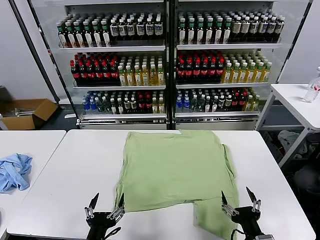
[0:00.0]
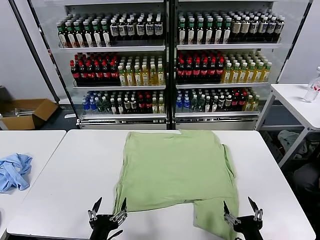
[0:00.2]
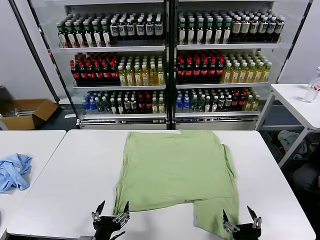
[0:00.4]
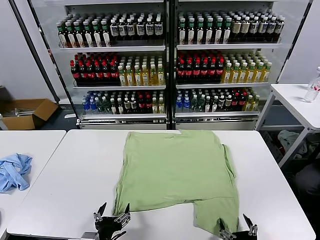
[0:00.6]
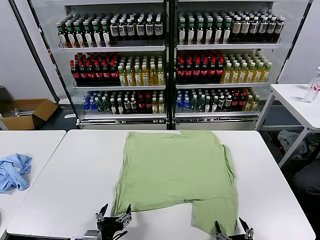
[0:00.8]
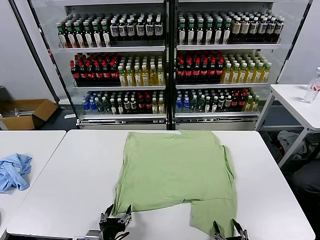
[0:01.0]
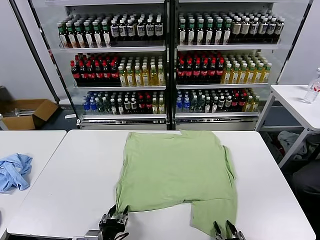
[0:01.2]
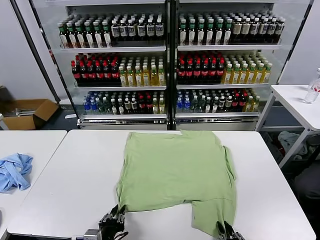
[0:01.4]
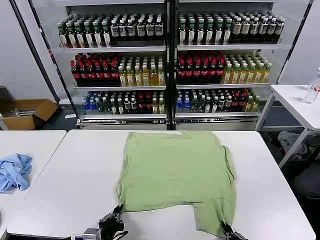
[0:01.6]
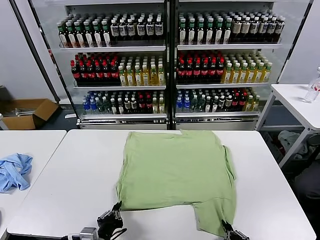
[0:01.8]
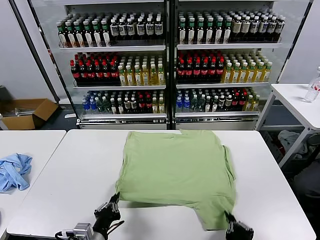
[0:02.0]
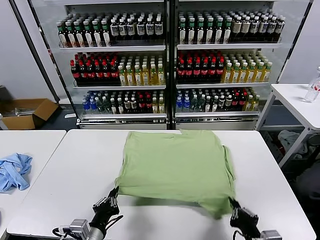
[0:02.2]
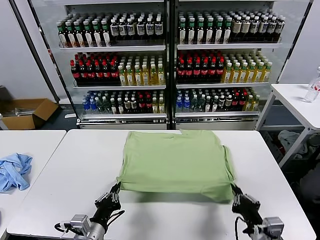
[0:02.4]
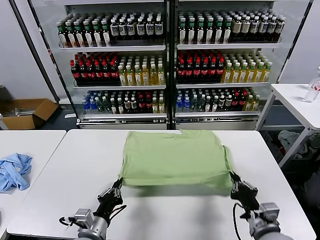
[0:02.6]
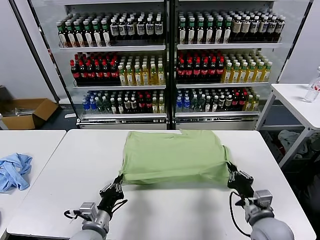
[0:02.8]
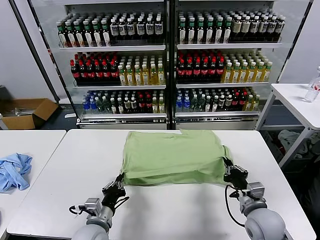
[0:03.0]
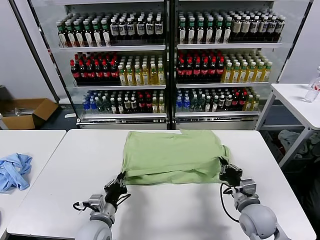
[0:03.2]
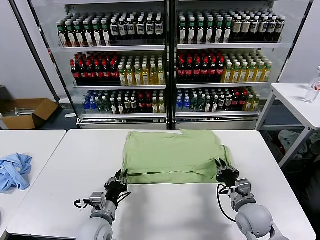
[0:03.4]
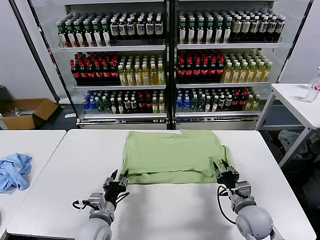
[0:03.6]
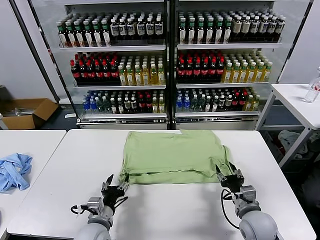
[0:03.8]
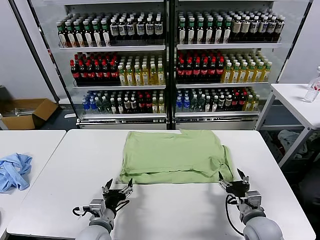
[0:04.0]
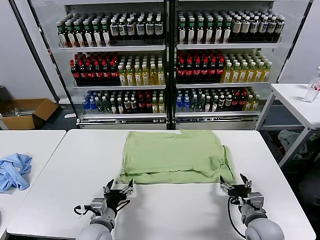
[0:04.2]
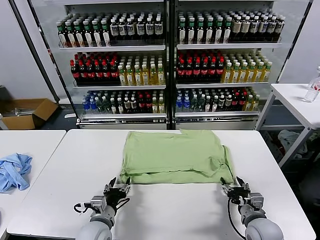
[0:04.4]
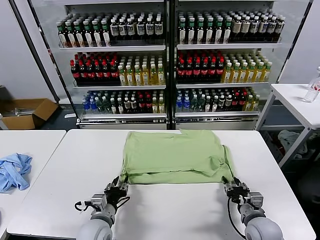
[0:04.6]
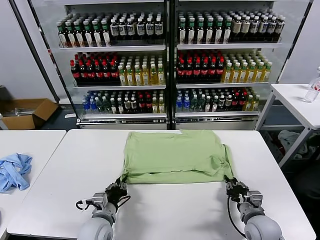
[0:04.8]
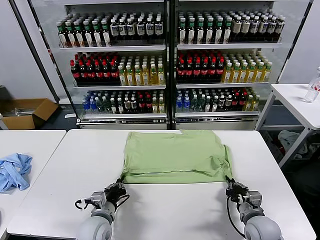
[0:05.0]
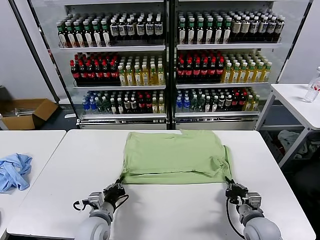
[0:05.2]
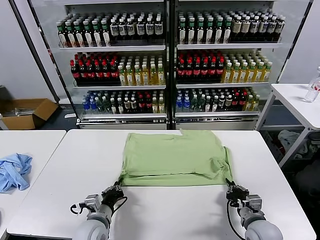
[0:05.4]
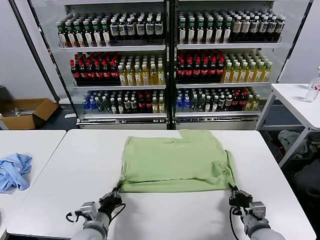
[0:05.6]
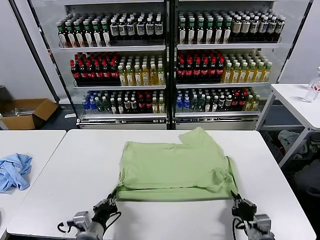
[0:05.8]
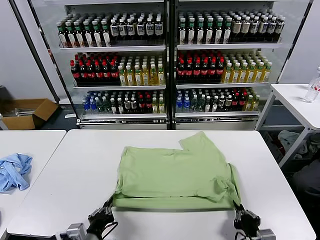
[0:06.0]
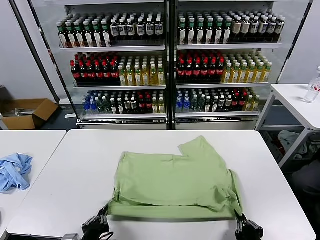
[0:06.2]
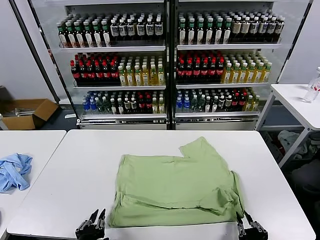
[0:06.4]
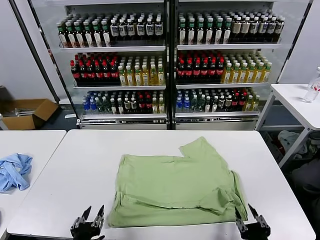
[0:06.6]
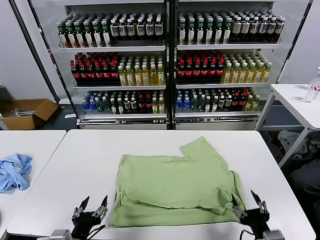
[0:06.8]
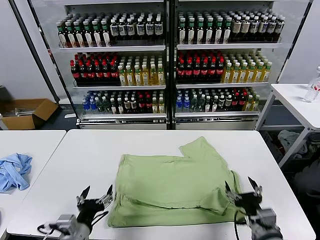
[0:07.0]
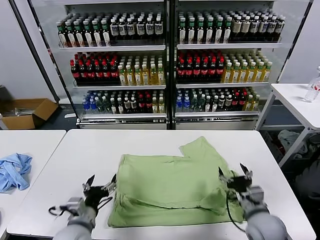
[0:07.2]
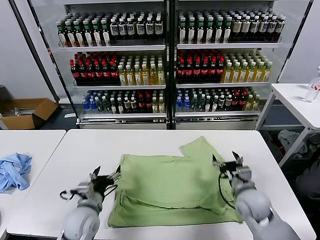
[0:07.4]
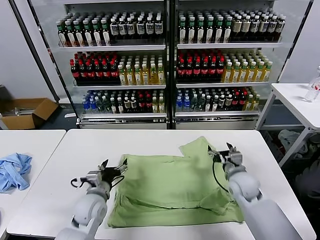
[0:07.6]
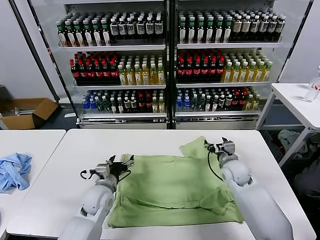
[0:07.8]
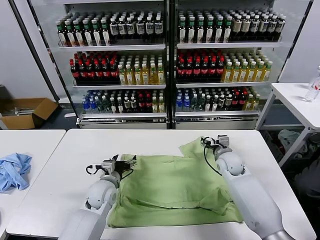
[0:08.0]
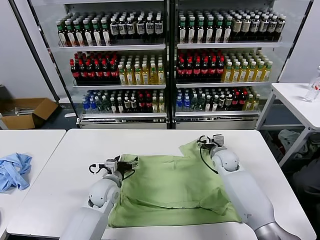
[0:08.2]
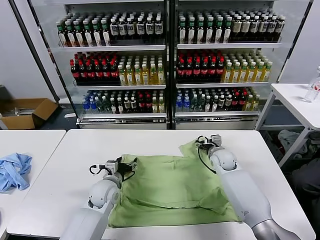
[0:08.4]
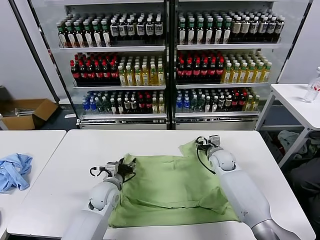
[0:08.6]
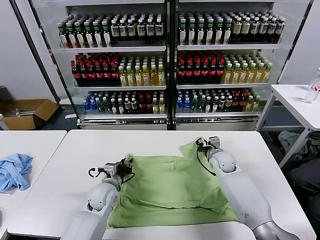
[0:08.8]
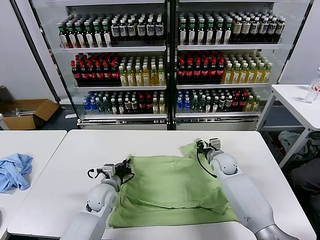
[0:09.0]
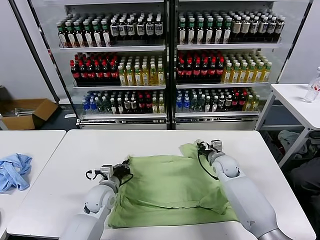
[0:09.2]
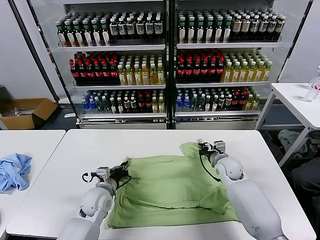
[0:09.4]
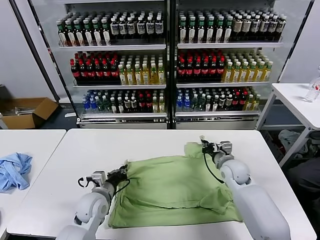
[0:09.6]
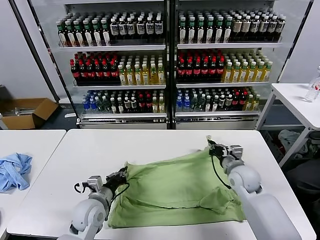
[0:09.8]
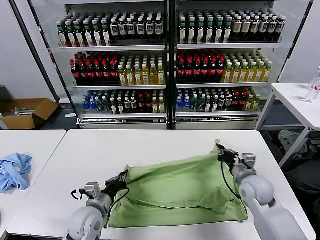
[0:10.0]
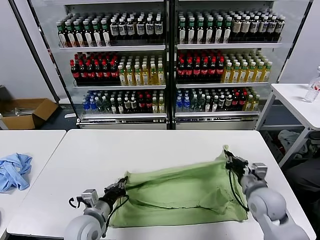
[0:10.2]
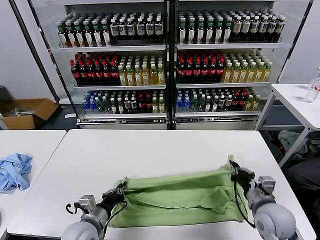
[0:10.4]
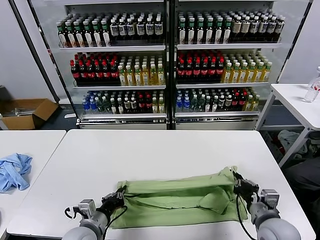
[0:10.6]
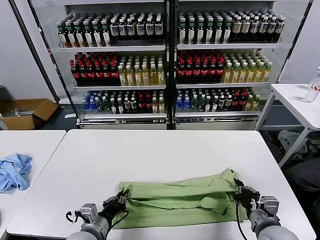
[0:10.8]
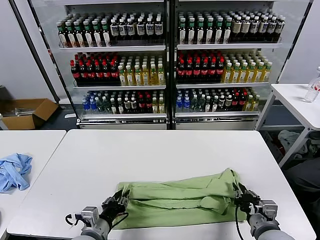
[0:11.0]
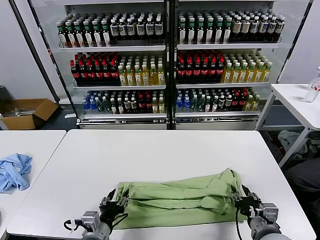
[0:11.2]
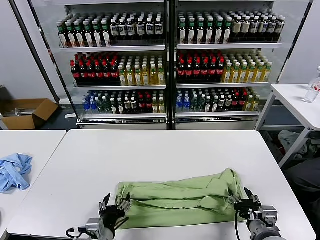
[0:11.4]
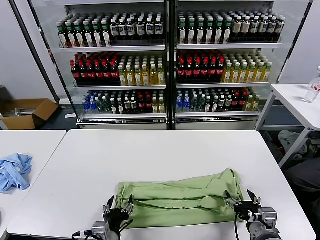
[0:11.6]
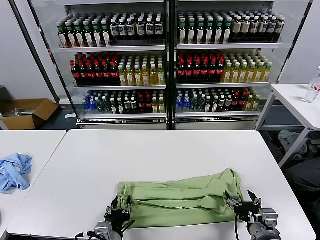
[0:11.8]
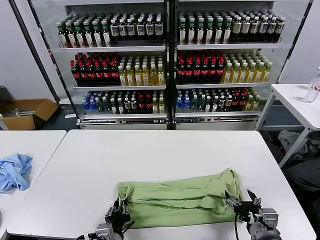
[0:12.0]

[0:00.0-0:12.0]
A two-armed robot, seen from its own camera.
Task of the whole recording: fold and organize the clothes.
Step, 0.0 to 1.6 s: use both grippers simultaneously to clamp the lower edge of the clothing fabric.
Step, 1.8 to 3.4 s: use both grippers to drag the lower edge of the fabric forward and fold it over the upper edge.
Step, 3.8 to 6.2 s: Drag the clothes downward with both gripper.
Step, 6.4 to 9.0 s: use both grippers simultaneously to clamp the upper edge of the clothing fabric.
Step, 9.2 to 11.0 s: use both grippers to drag the upper edge of the fabric backward and fold it over the lower edge.
1.6 to 3.0 s: The left gripper is displaced forward by about 10 cm; the right gripper shifts about 20 cm forward.
3.0 to 4.4 s: The left gripper opens up; the right gripper shifts by about 5 cm, and opens its fingers.
4.4 to 6.0 s: Both grippers move backward, approximately 10 cm. The right gripper closes its fingers. The left gripper closes up.
6.0 to 7.6 s: The right gripper goes some 30 cm forward, and opens. Meanwhile the left gripper shifts about 20 cm forward, and opens up.
7.6 to 9.0 s: The right gripper heads forward, covering some 10 cm, and closes its fingers. The left gripper shifts by approximately 5 cm, and closes its fingers.
9.0 to 10.4 s: The right gripper heads backward, covering about 25 cm. Meanwhile the left gripper is displaced backward by roughly 15 cm.
10.4 to 12.0 s: The right gripper travels backward by some 5 cm, and opens up. Meanwhile the left gripper shifts some 10 cm to the right and backward, and opens, then closes once more.

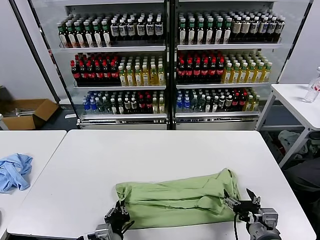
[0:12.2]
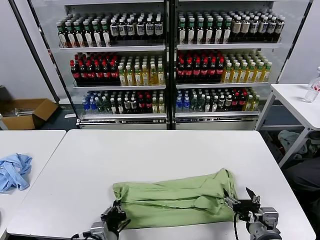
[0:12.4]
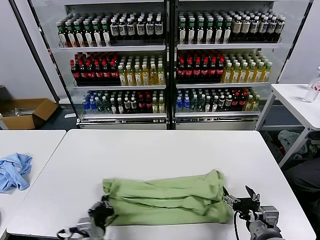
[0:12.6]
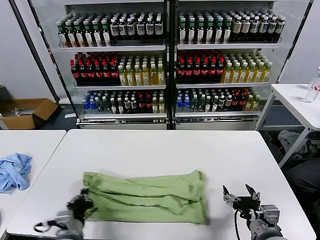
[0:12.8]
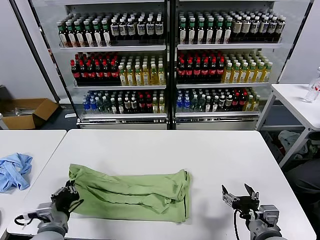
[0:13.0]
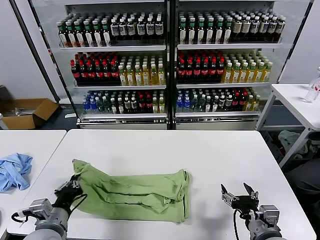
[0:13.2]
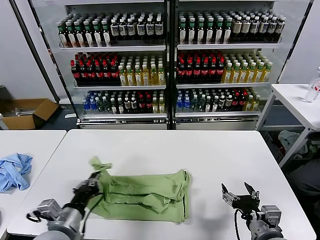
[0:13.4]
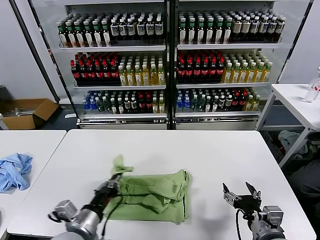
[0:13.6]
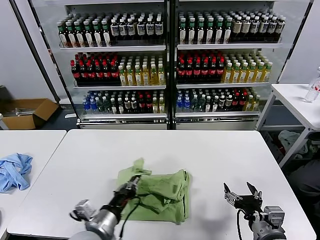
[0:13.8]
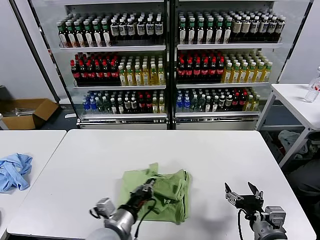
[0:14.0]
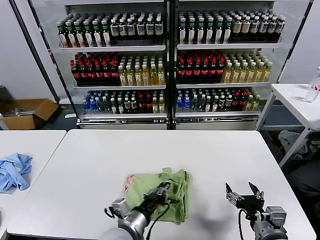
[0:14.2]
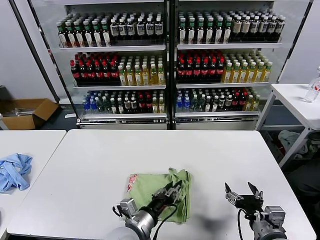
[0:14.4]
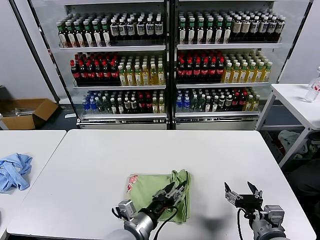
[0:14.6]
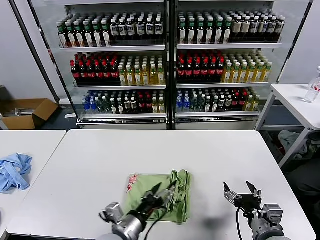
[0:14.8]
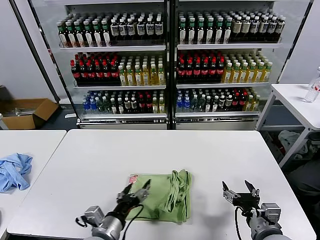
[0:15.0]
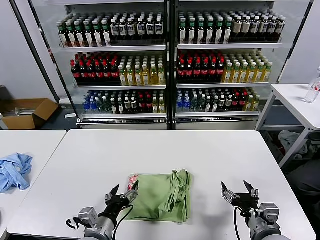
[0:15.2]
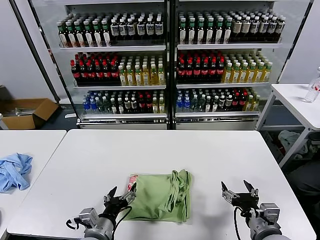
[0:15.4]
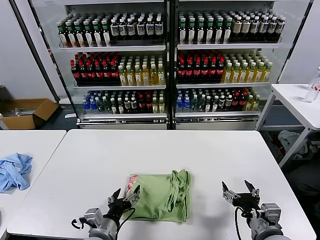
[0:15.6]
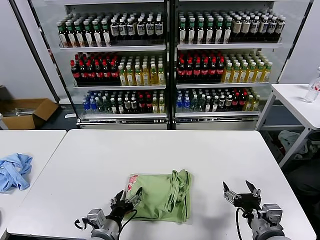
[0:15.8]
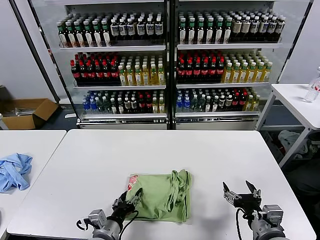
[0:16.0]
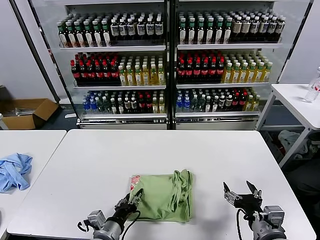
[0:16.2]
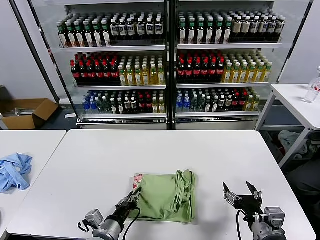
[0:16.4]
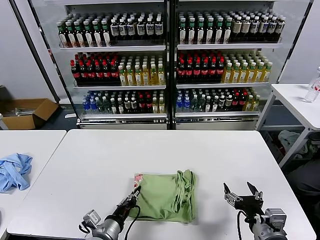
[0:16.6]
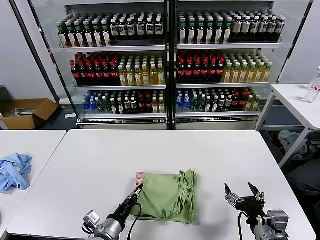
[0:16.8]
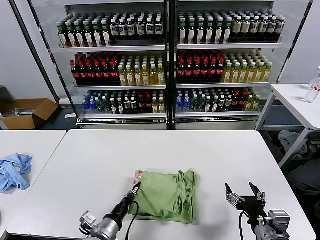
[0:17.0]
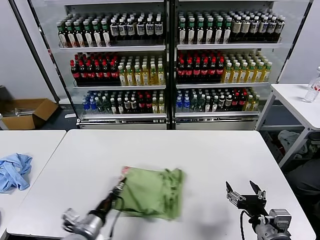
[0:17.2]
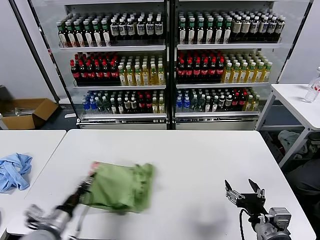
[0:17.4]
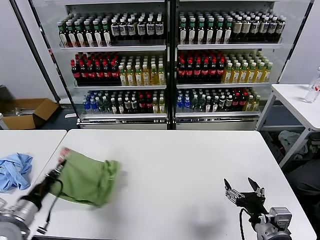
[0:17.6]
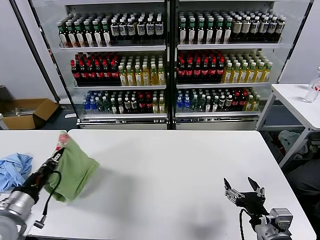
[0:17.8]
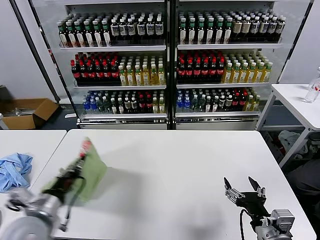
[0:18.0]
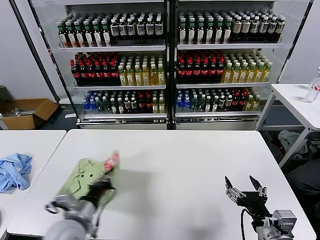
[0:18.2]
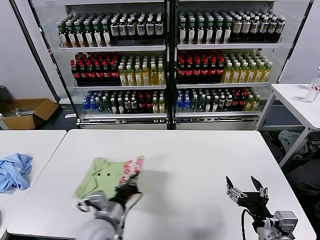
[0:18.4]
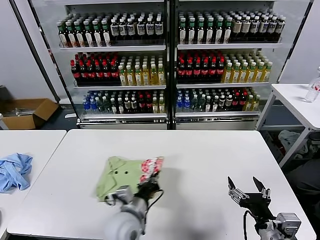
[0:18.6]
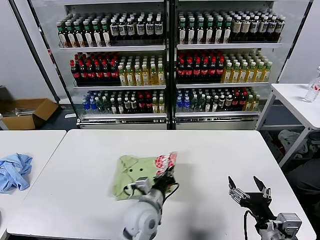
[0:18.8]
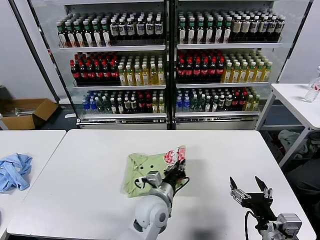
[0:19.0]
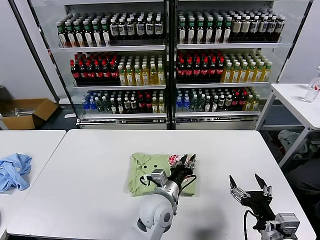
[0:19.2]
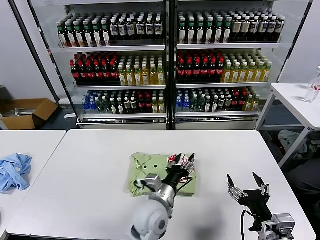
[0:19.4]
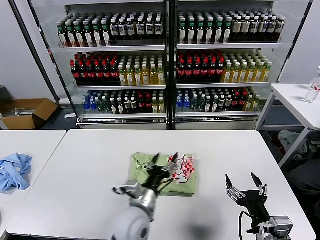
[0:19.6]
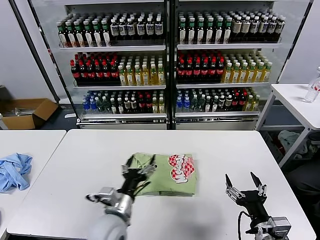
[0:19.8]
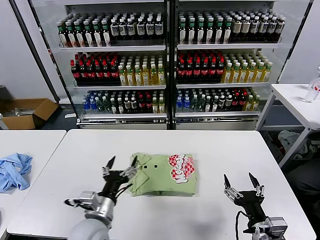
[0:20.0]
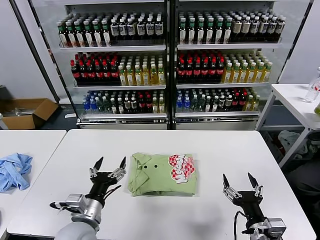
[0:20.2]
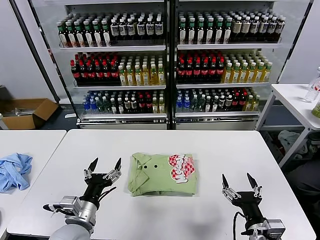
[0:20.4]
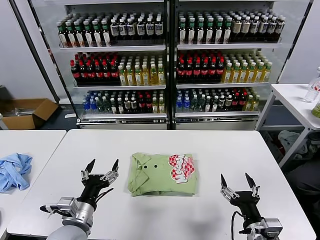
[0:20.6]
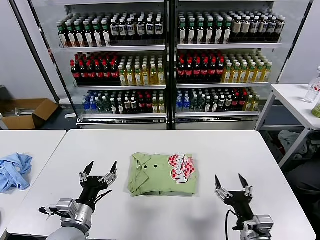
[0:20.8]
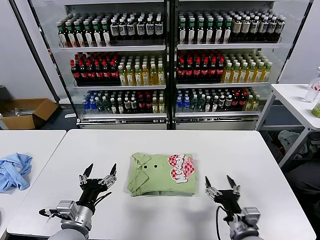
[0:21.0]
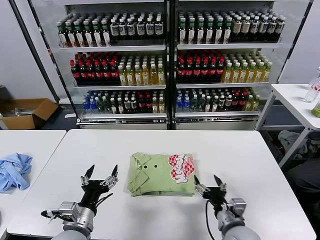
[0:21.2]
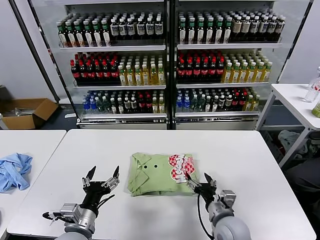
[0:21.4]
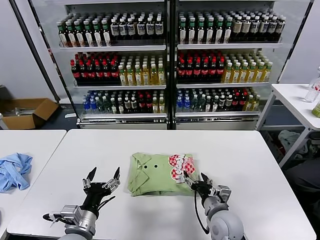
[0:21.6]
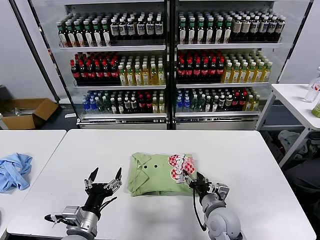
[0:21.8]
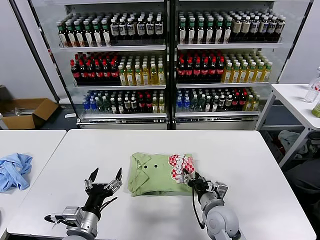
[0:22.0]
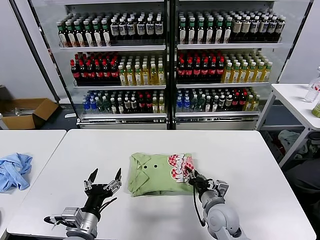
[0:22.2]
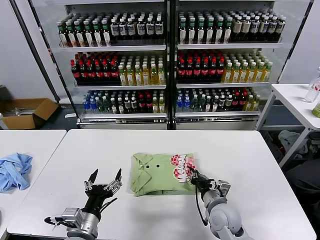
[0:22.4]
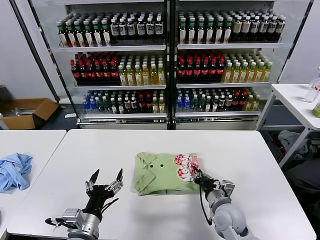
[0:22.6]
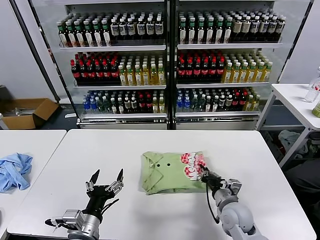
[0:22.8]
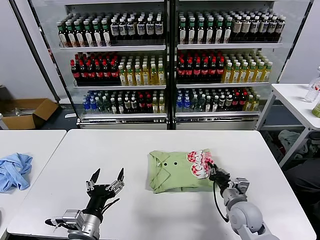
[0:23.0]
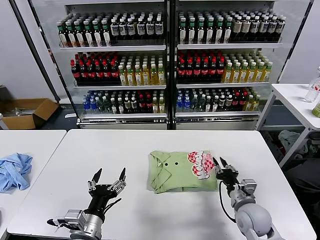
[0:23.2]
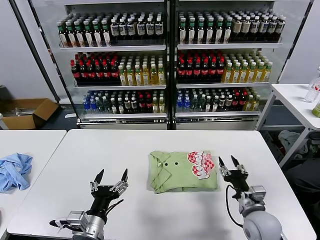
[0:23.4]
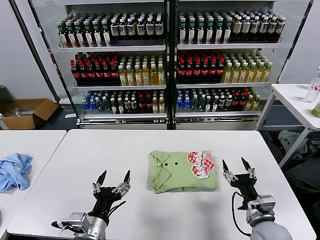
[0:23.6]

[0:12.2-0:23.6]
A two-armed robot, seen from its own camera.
Task of the whole recording: fold and organize the clothes.
Step, 12.4 to 14.4 s: use the left gripper to drag the left edge of the fabric to the left and folds it over the right edge.
Step, 14.6 to 19.2 s: Flip the folded clothes over with left gripper.
Step, 19.4 to 23.2 s: Drag the clothes to the center of the table.
12.2 to 13.6 s: The left gripper moves upward and to the left, approximately 15 cm.
13.6 to 15.0 s: The left gripper travels to the right by about 5 cm, and opens.
15.0 to 16.4 s: The left gripper is displaced downward by roughly 5 cm, and closes its fingers.
16.4 to 17.8 s: The left gripper moves to the left and upward, approximately 25 cm.
17.8 to 19.4 s: The left gripper travels to the right by roughly 35 cm, and opens up.
19.4 to 20.8 s: The left gripper is displaced to the left by about 20 cm, and opens up, while the right gripper ends up approximately 5 cm from where it was.
20.8 to 22.2 s: The right gripper shifts approximately 15 cm forward, to the left and downward, and closes.
22.2 to 23.6 s: The right gripper goes approximately 10 cm to the right and backward, and closes, then opens again.
